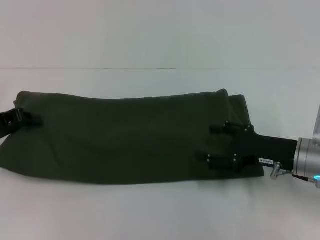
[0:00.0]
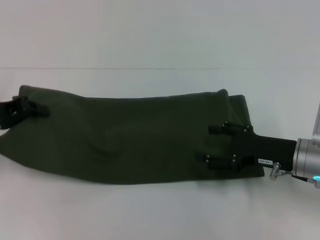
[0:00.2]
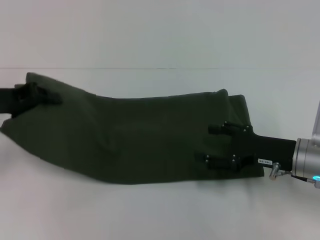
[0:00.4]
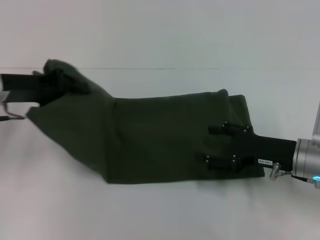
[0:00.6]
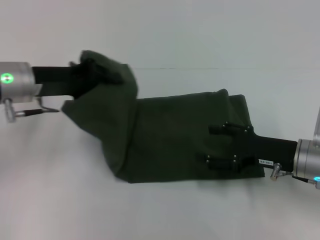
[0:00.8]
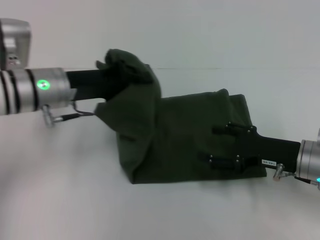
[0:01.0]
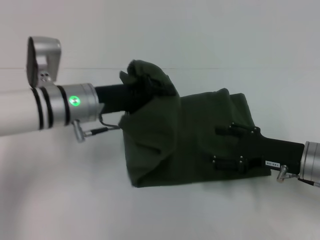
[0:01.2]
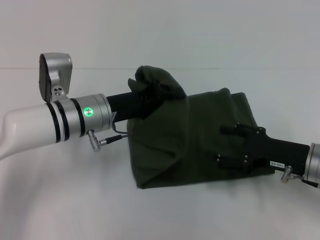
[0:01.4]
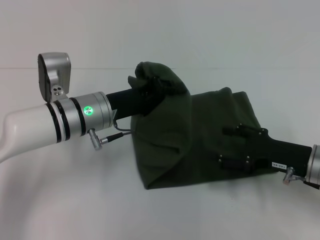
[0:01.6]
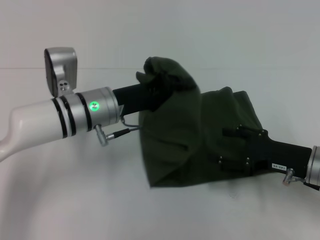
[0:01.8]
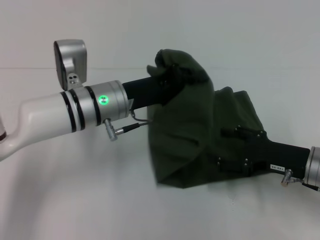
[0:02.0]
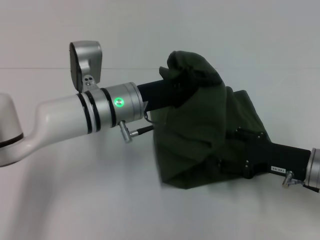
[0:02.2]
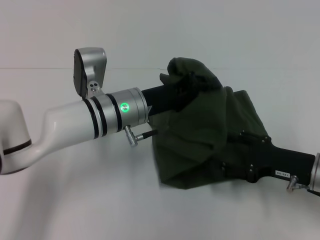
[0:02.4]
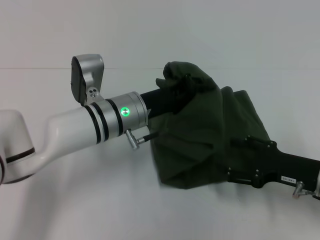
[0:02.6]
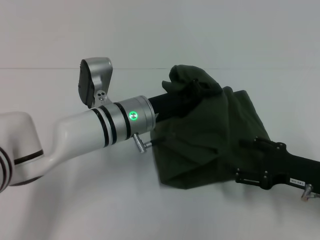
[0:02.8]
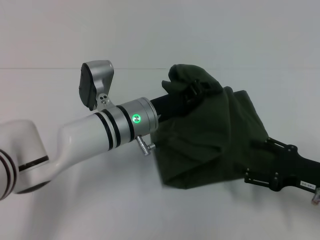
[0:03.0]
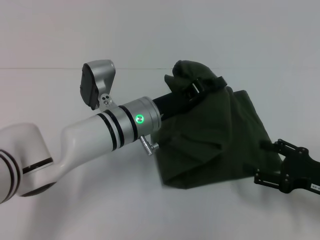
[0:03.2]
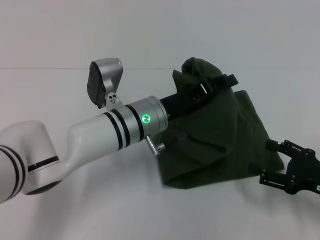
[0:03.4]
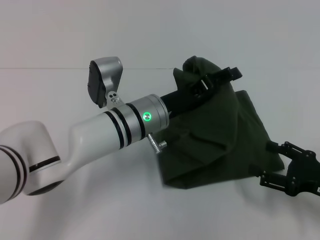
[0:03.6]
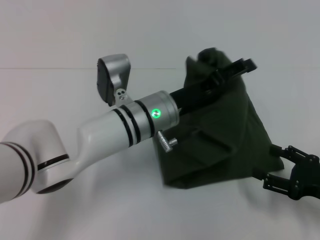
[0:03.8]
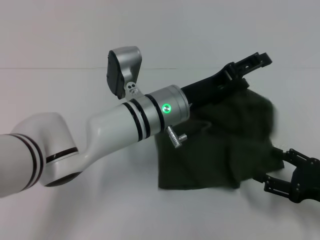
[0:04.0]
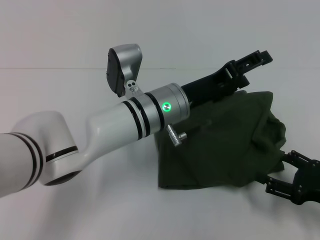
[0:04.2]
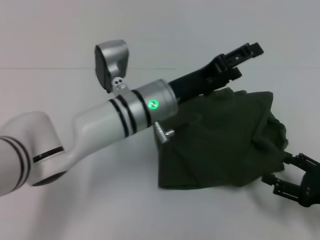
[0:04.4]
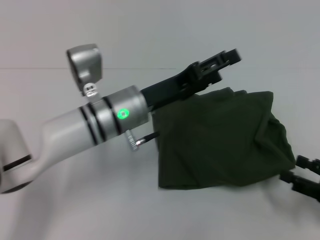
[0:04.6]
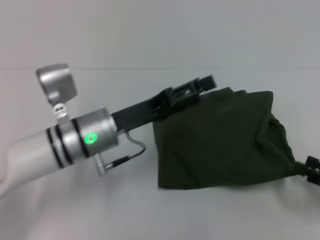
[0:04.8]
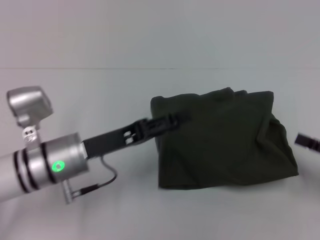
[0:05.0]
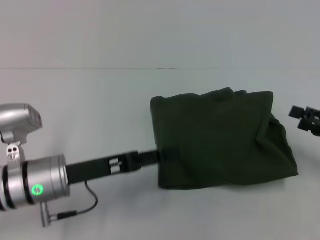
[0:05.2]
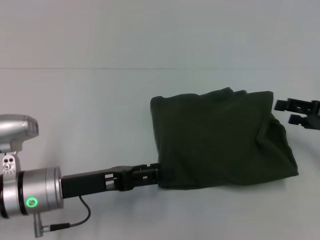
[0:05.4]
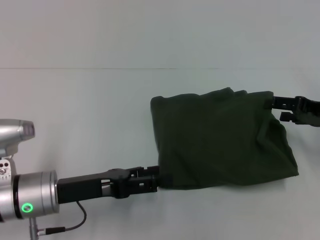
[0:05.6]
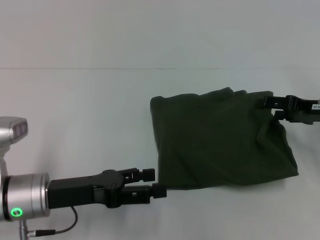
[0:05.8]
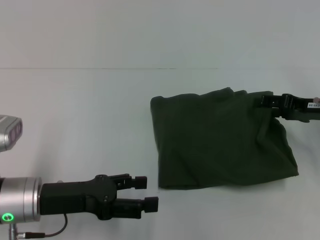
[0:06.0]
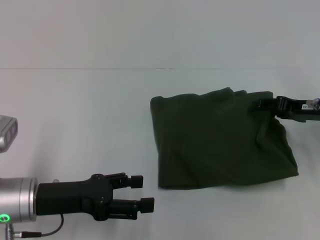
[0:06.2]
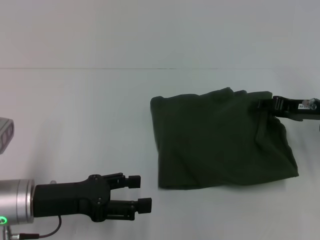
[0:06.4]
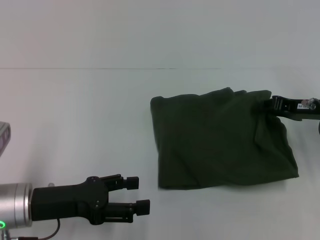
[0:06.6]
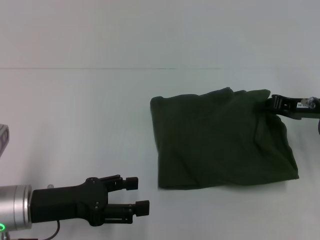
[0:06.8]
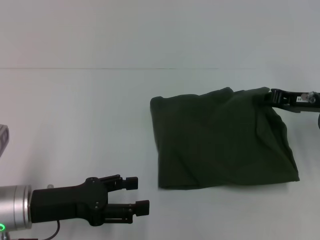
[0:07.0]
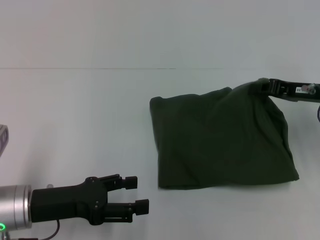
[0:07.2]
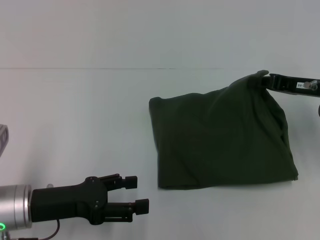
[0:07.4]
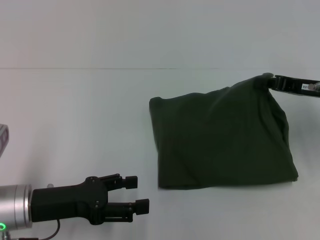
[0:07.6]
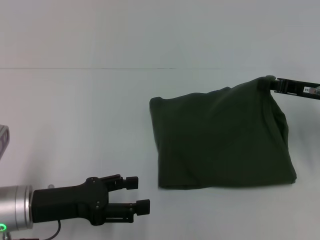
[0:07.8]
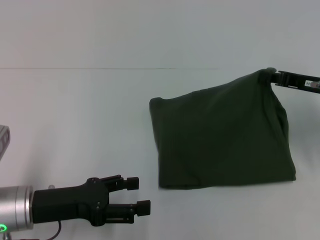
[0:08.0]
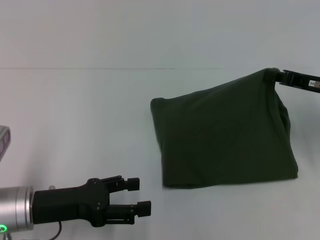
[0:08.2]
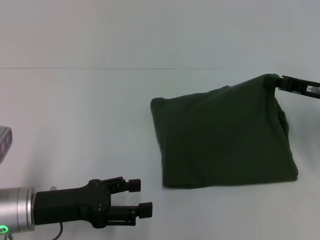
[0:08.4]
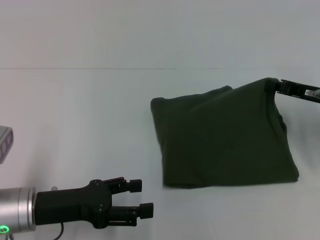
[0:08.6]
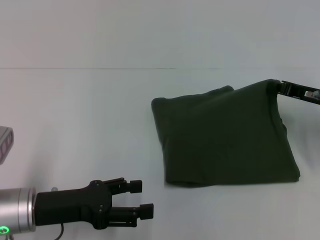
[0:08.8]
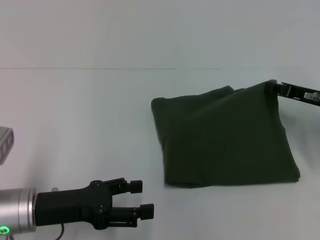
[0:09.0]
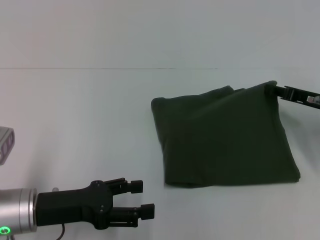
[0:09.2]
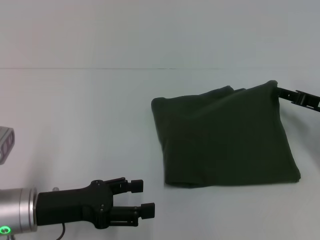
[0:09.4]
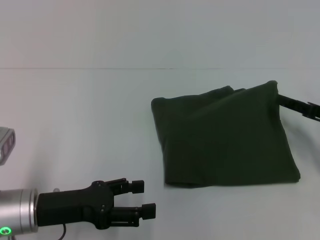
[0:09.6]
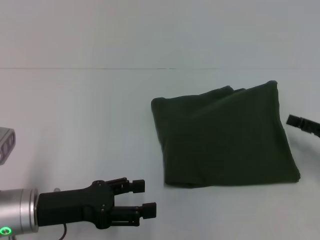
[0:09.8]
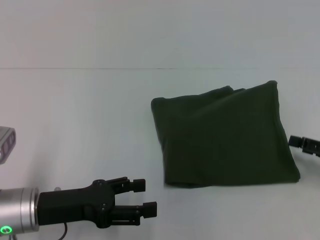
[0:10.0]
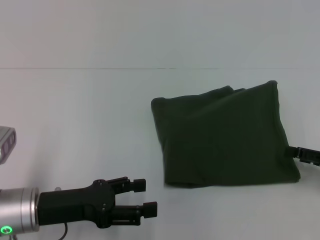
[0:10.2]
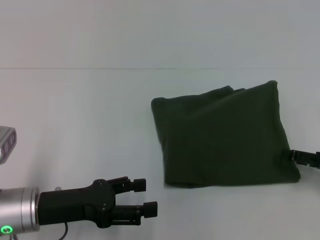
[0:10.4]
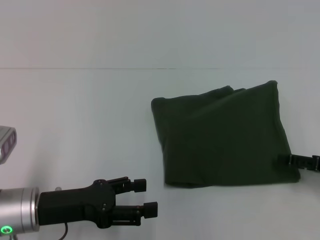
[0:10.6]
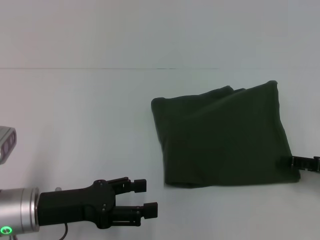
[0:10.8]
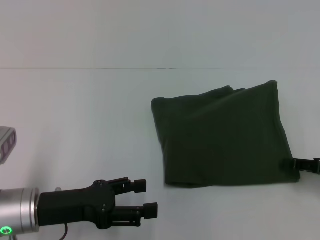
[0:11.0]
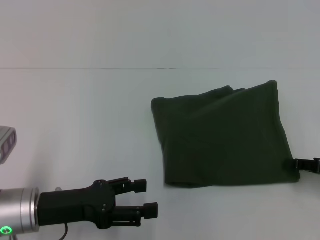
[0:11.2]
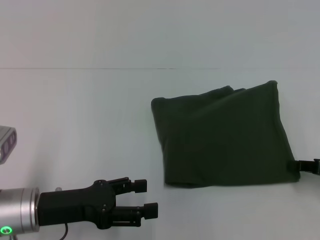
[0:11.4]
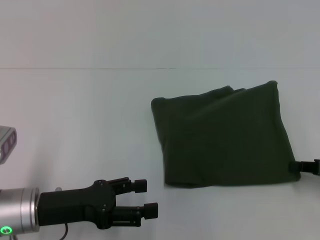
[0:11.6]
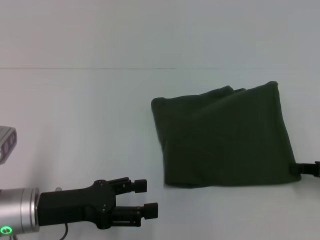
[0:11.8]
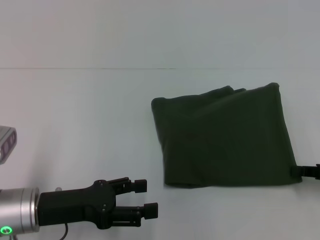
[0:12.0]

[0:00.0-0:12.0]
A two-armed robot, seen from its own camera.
Step, 0:00.0 to 0:04.2: Fold the clothes with your left hand.
0:00.0 to 0:01.6: The left gripper is displaced to the right by roughly 20 cm.
0:01.6 to 0:03.0: The right gripper ends up some 5 cm from where it was. The left gripper travels to the right by approximately 5 cm.
0:03.0 to 0:04.4: The left gripper opens up, while the right gripper changes place by roughly 5 cm.
0:04.4 to 0:06.0: The right gripper goes roughly 15 cm forward and upward, while the left gripper heads to the left and backward, covering about 20 cm.
0:06.0 to 0:07.6: The right gripper closes.
0:07.6 to 0:09.0: The grippers make only small movements.
0:09.0 to 0:10.4: The right gripper heads backward and to the right, covering about 10 cm, and opens its fingers.
0:10.4 to 0:12.0: The right gripper closes its fingers.

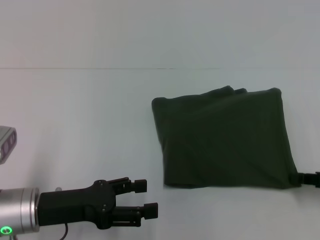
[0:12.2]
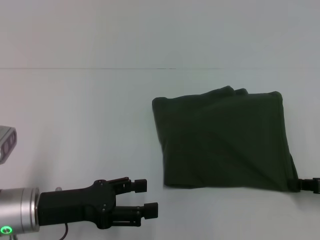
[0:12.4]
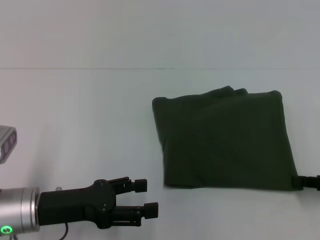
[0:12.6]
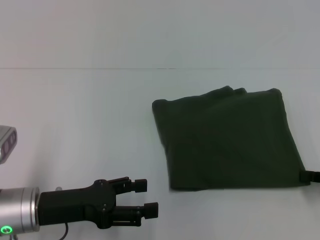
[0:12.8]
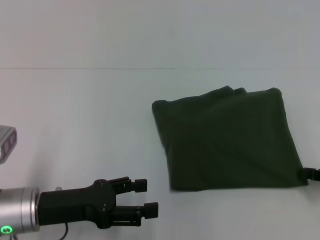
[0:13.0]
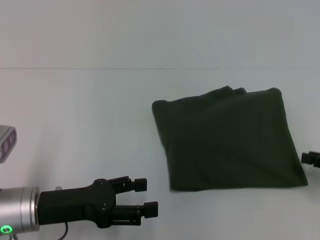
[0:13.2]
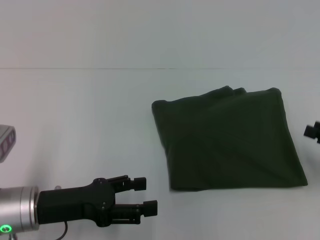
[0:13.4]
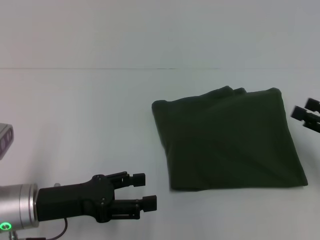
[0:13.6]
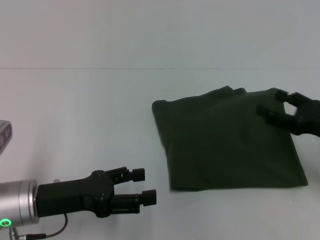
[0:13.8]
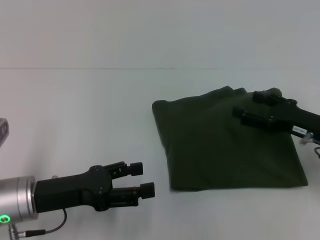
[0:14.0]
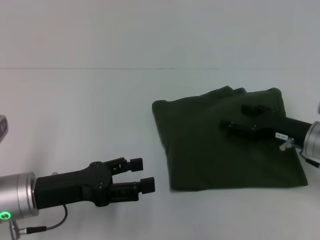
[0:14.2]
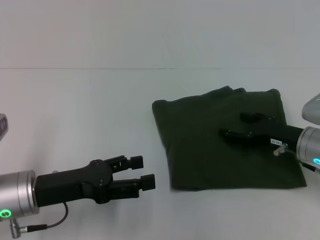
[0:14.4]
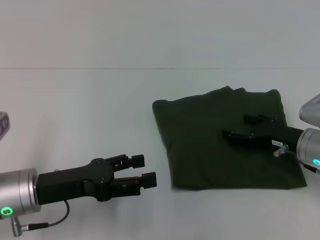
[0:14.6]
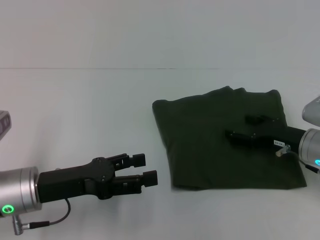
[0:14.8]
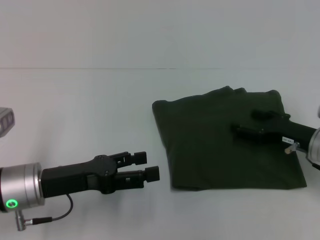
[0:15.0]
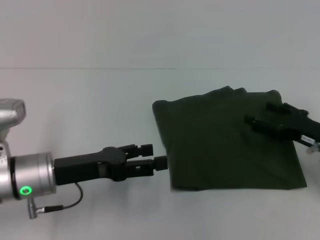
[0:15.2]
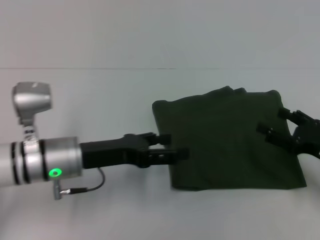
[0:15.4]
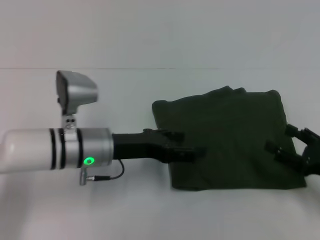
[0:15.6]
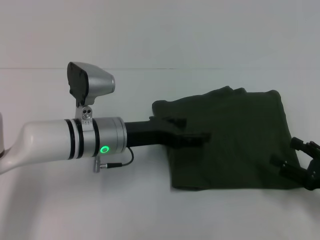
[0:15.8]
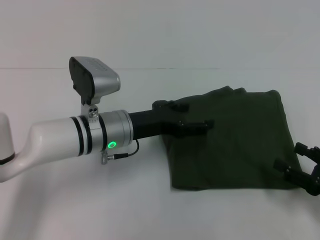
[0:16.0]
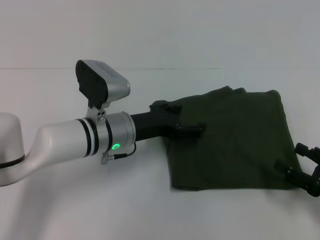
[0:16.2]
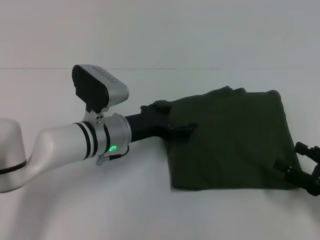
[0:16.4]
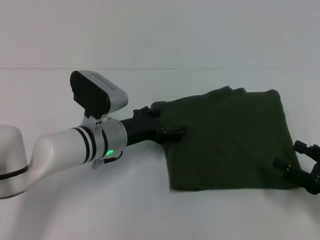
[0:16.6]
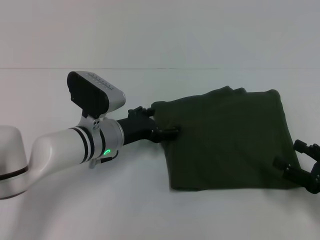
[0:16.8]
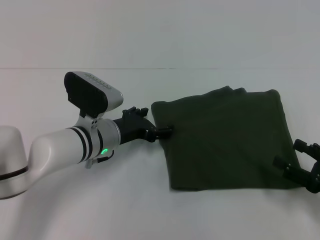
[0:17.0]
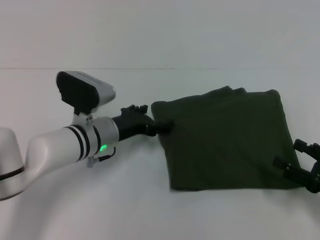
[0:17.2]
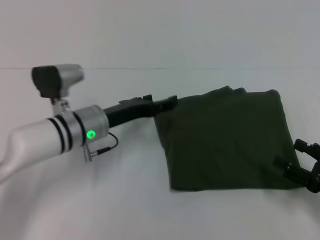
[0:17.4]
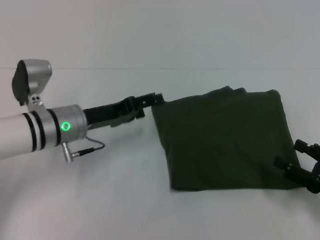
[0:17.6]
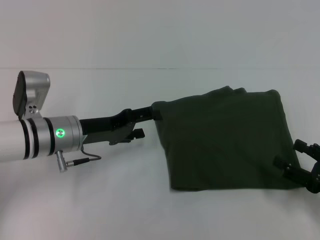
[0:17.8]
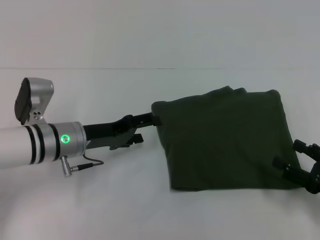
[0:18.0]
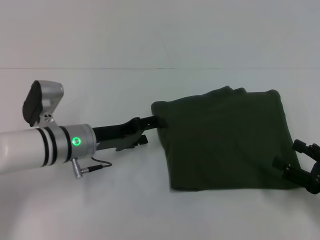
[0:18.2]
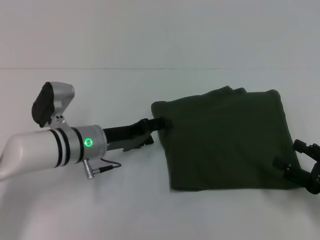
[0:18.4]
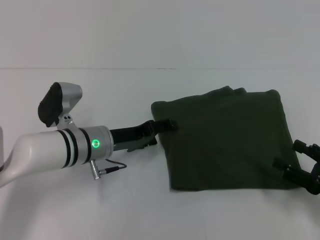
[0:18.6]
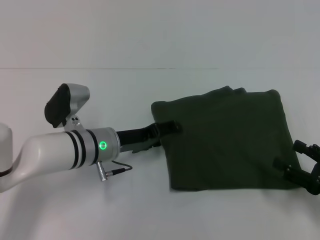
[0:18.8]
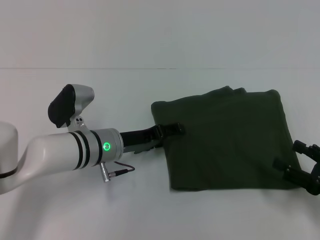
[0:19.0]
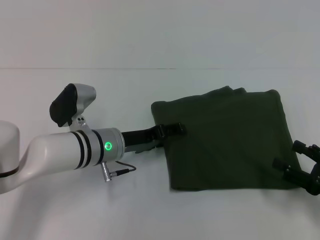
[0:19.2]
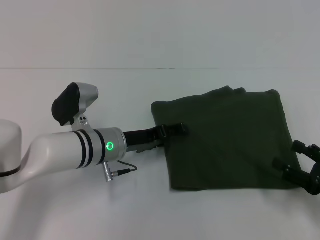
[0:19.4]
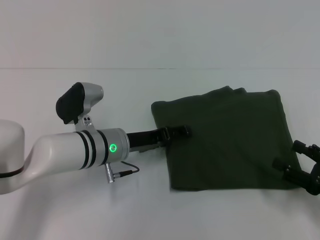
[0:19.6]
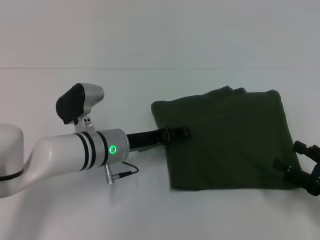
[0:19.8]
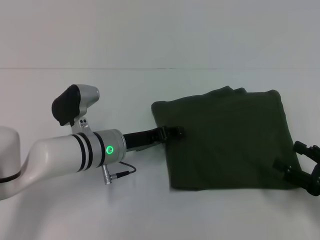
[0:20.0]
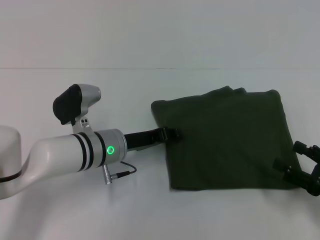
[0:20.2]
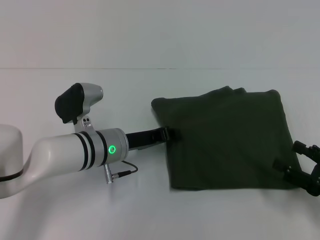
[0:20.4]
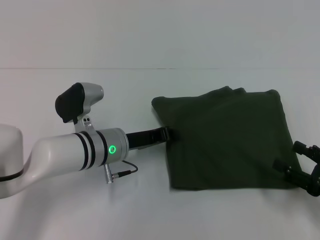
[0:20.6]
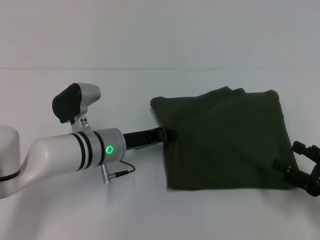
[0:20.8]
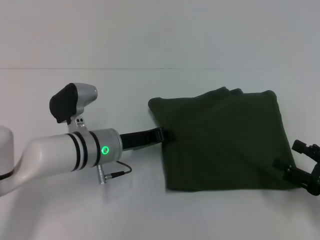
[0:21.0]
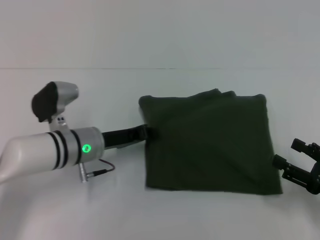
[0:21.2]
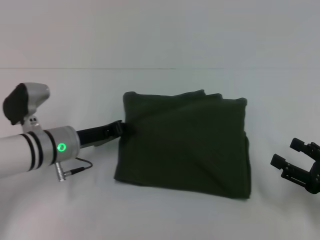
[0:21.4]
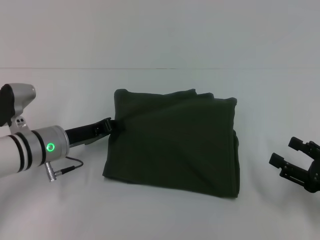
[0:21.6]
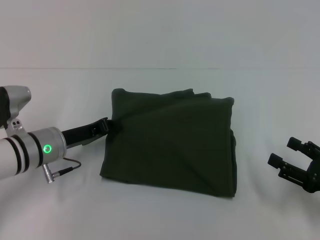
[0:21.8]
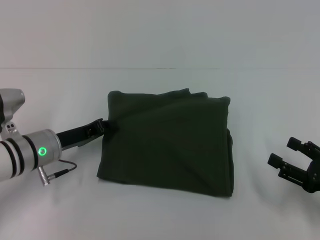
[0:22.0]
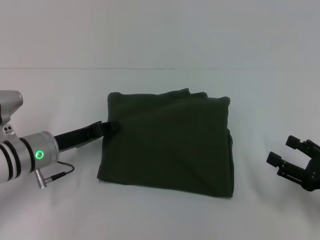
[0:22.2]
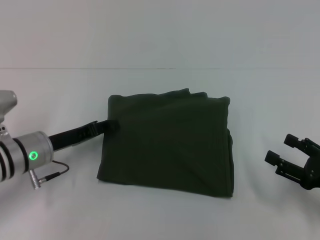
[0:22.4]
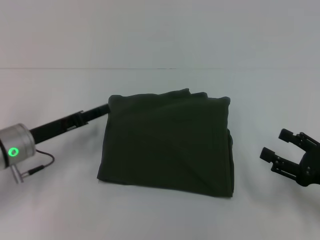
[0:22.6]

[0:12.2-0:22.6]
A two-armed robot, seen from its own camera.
0:12.2 to 0:13.6: The right gripper opens.
0:13.6 to 0:15.2: The right gripper goes approximately 5 cm to the left, and opens its fingers.
0:15.2 to 0:16.6: The right gripper moves backward, some 10 cm. Meanwhile the left gripper goes about 10 cm to the right and forward.
0:16.6 to 0:18.2: The left gripper goes roughly 5 cm to the left.
0:18.2 to 0:19.6: The left gripper travels to the right by roughly 5 cm.
0:19.6 to 0:21.2: The left gripper closes its fingers.
0:21.2 to 0:22.6: The left gripper heads to the left, covering roughly 10 cm, and opens up.
